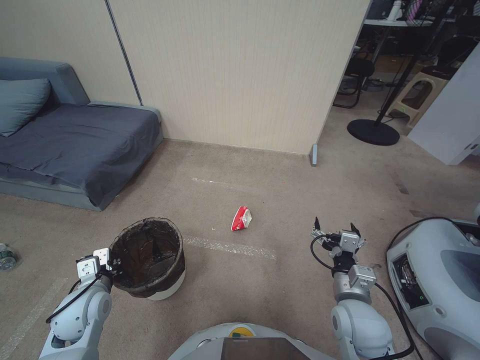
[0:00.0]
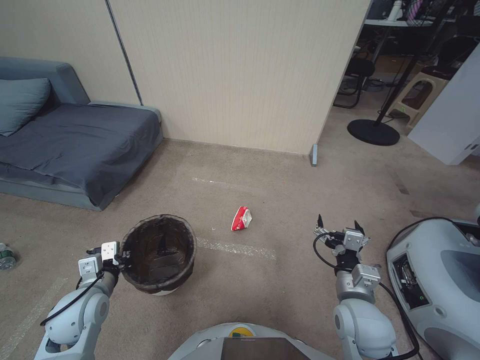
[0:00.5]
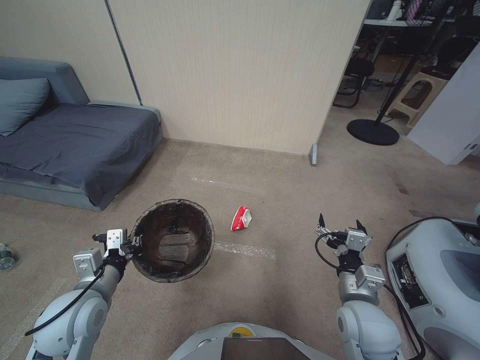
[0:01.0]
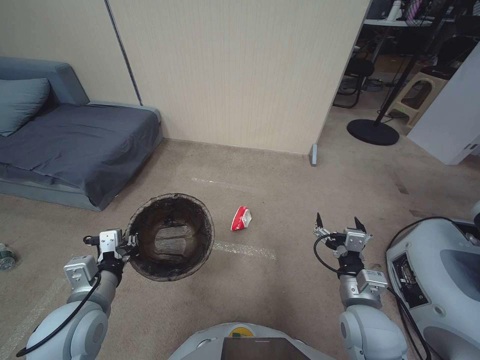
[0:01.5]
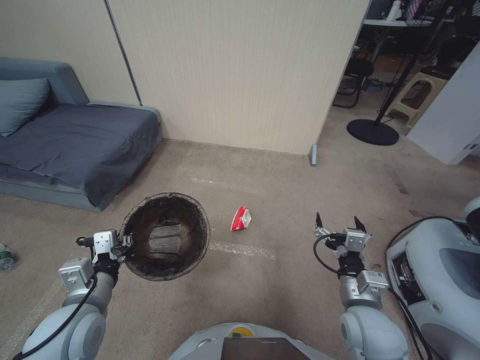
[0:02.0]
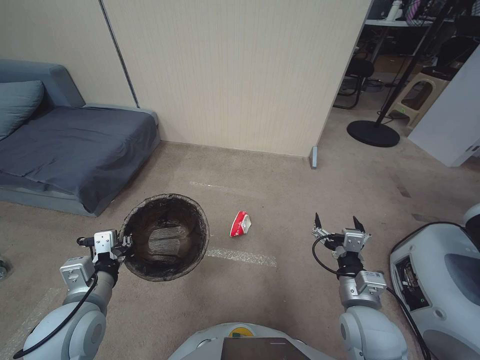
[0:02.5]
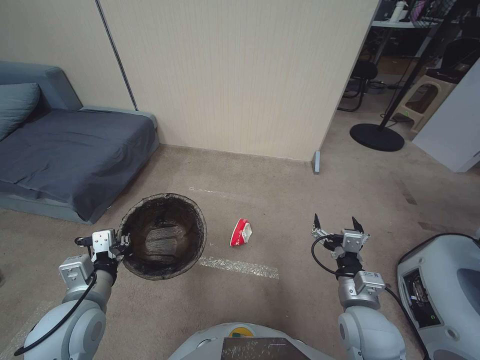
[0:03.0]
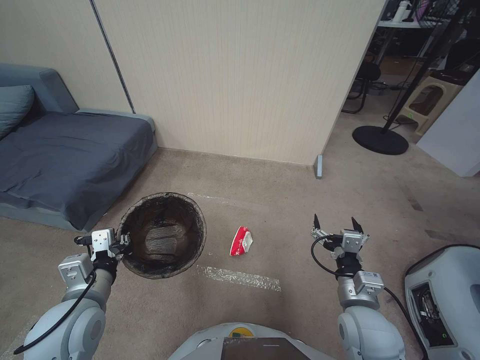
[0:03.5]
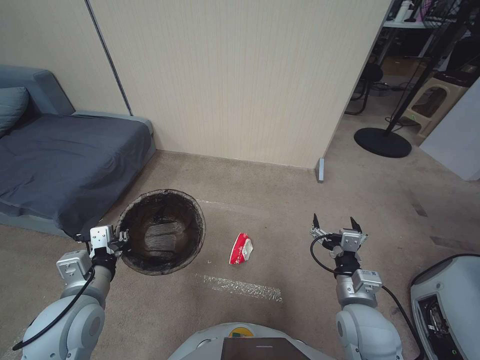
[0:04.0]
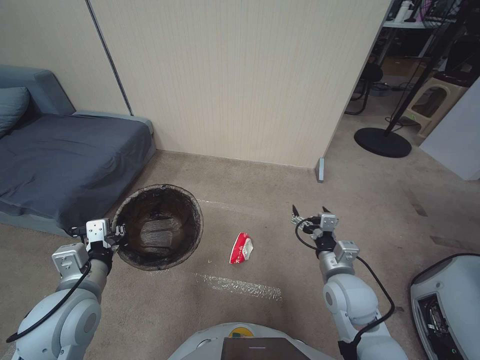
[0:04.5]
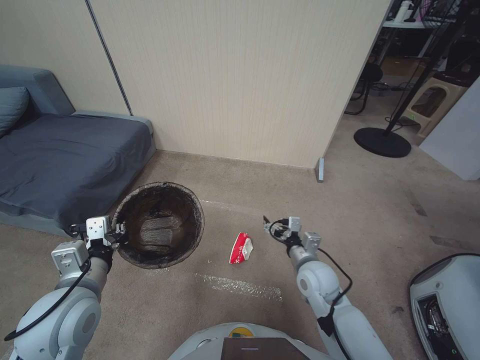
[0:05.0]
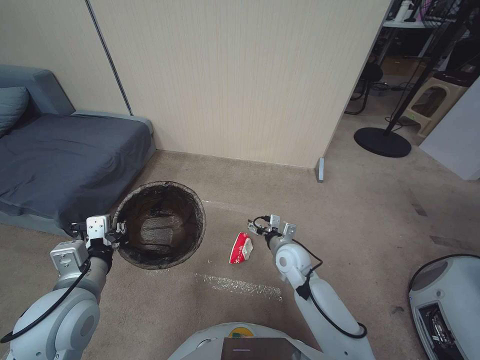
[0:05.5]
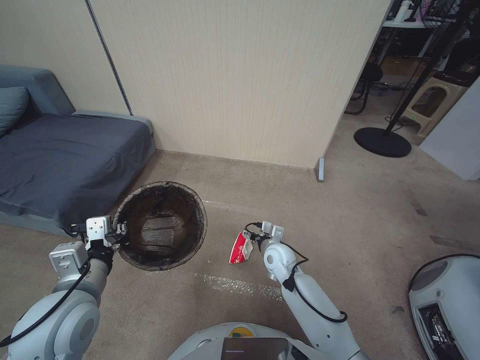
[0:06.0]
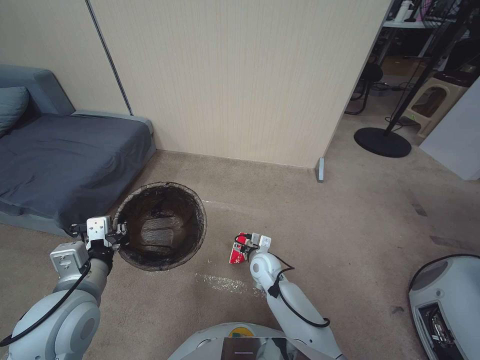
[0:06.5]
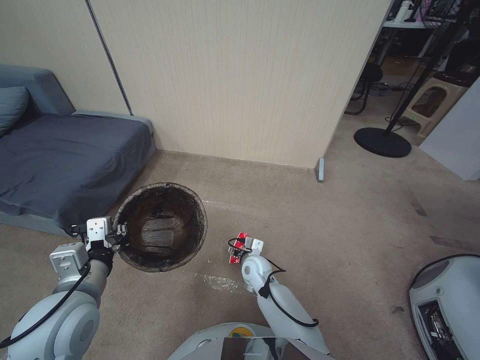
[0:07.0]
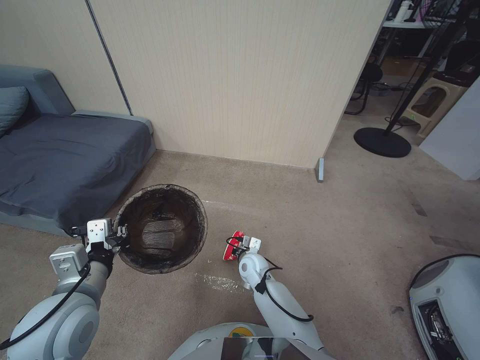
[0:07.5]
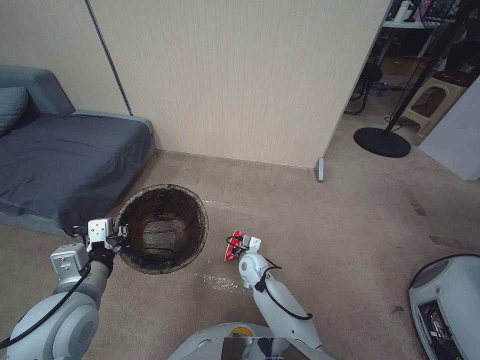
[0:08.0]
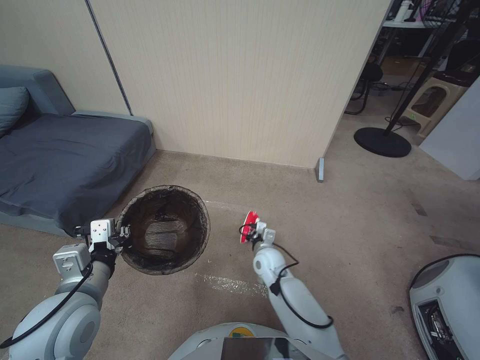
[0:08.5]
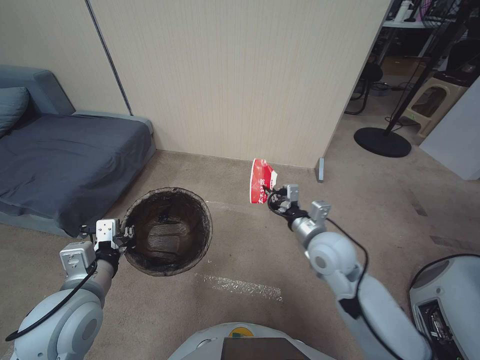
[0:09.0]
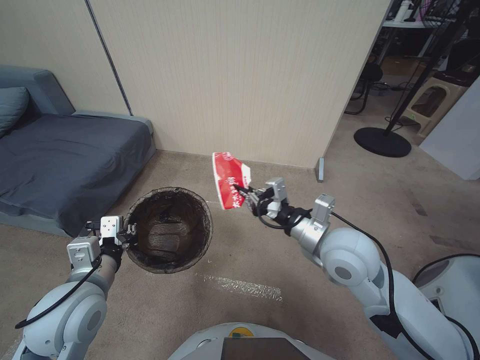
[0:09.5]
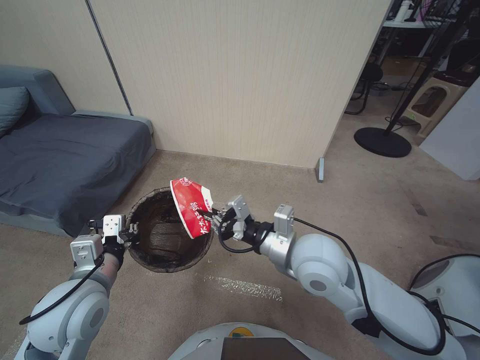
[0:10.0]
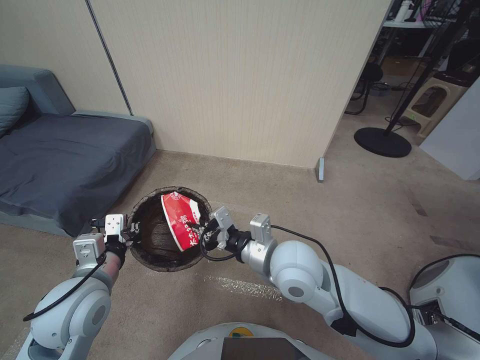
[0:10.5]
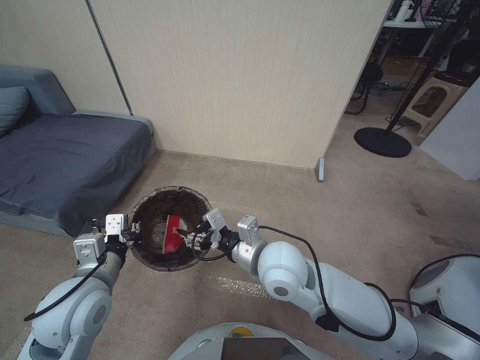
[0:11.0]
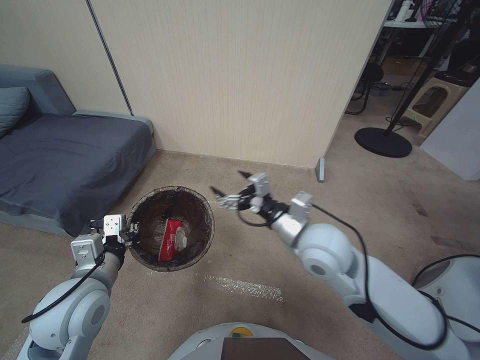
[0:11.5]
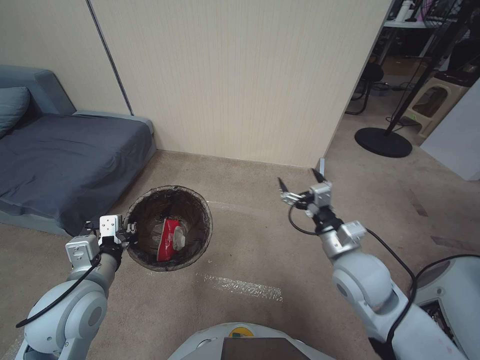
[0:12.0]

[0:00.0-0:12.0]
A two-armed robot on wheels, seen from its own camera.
Task of the whole recording: Pick up the trash bin, then pick up the garbage from the floor and place it into the trash bin.
0:00.0 to 0:02.0: The left gripper travels upward, to the right and backward by some 10 cm.
0:04.0 to 0:06.0: The right gripper shifts approximately 25 cm forward, downward and to the left.
0:06.0 to 0:08.0: The right gripper goes some 10 cm to the left and downward, and closes up.
0:08.0 to 0:10.0: The right gripper goes approximately 30 cm upward.
0:10.0 to 0:12.0: The right gripper shifts roughly 10 cm to the right and downward, and opens up.

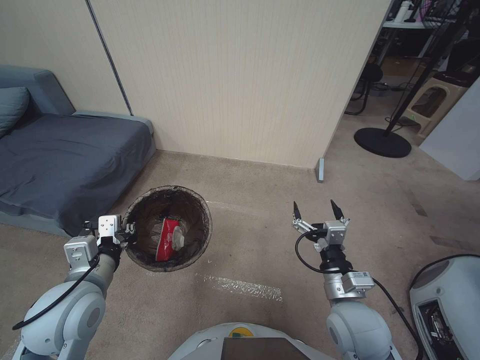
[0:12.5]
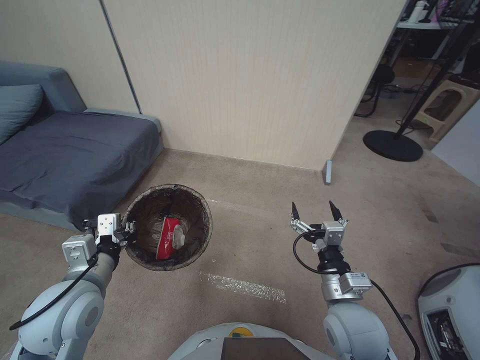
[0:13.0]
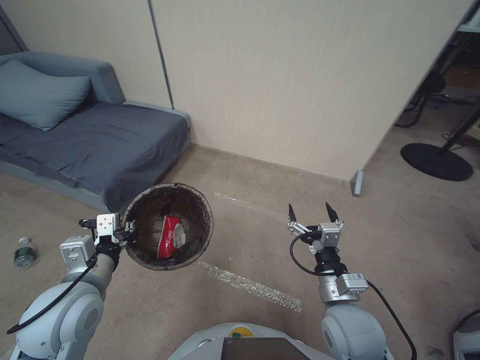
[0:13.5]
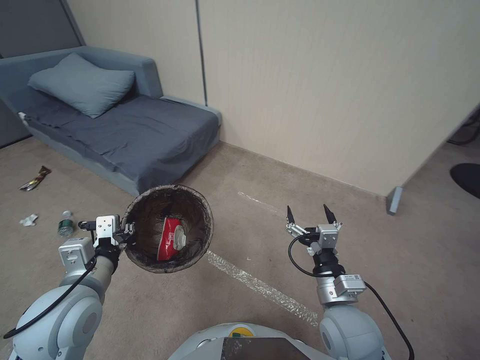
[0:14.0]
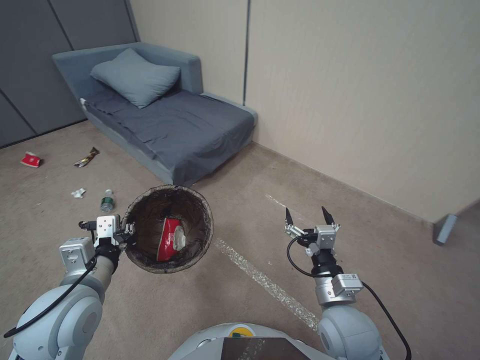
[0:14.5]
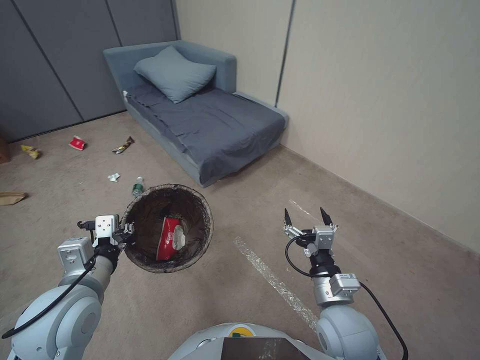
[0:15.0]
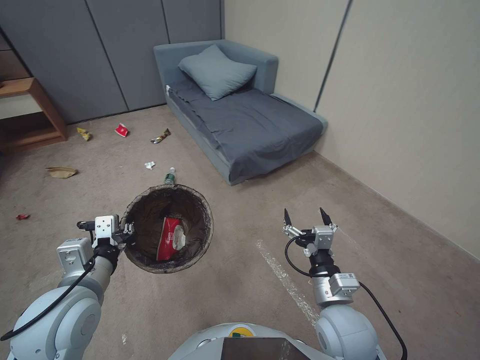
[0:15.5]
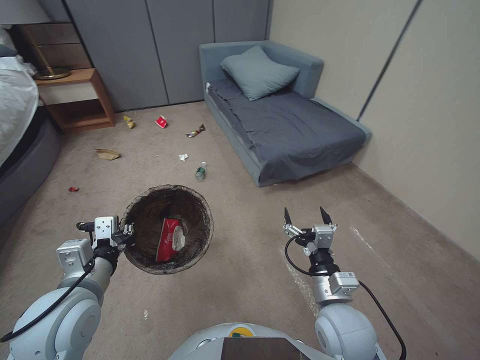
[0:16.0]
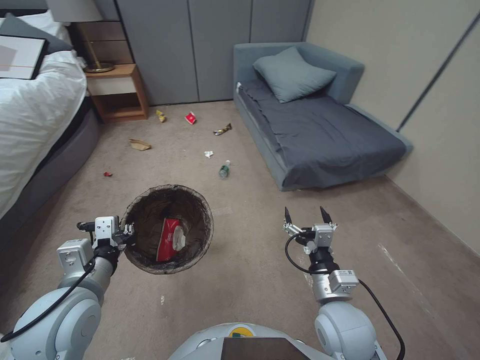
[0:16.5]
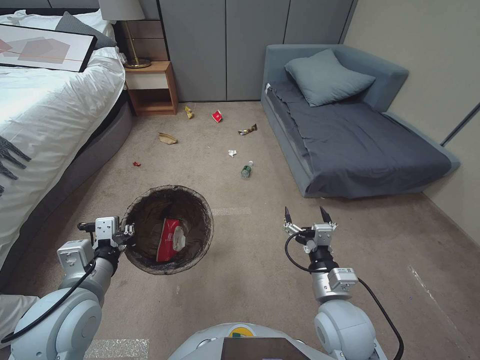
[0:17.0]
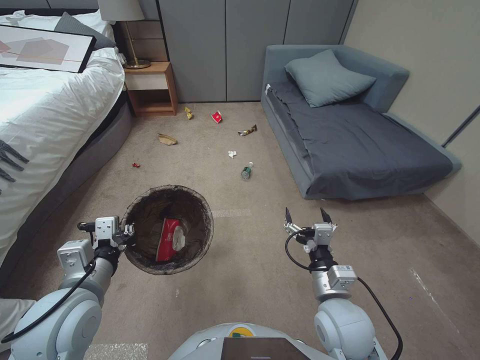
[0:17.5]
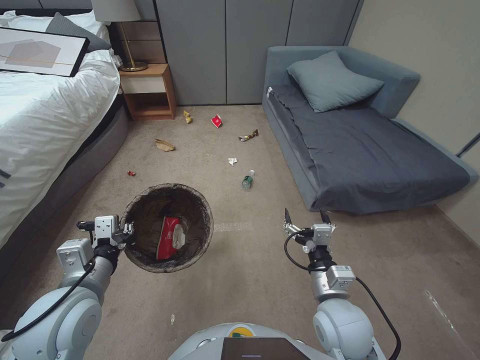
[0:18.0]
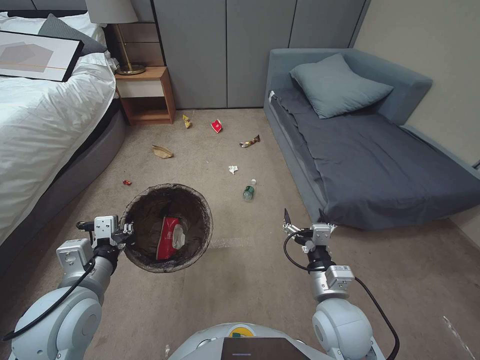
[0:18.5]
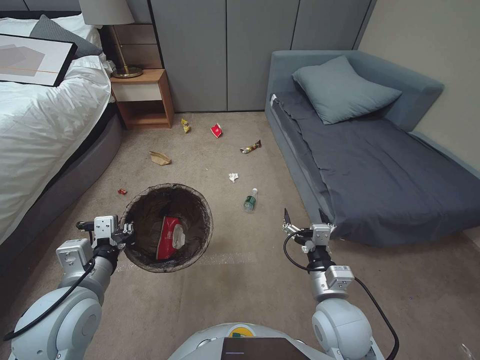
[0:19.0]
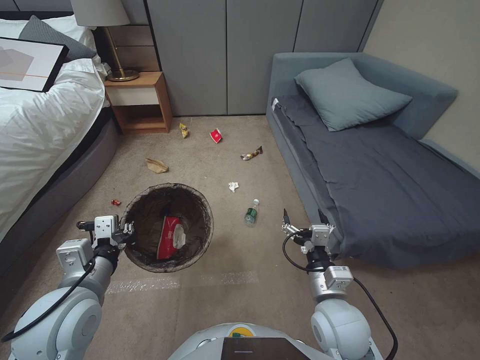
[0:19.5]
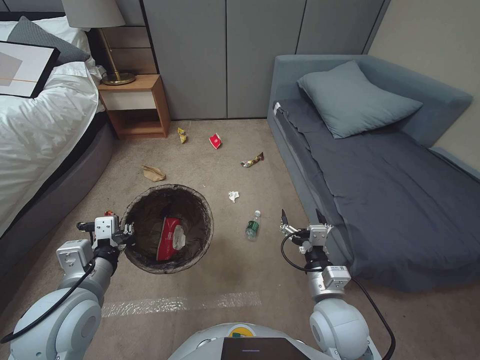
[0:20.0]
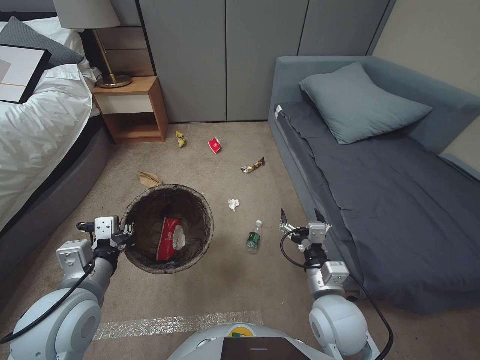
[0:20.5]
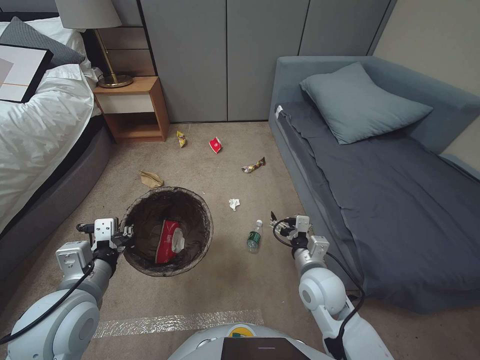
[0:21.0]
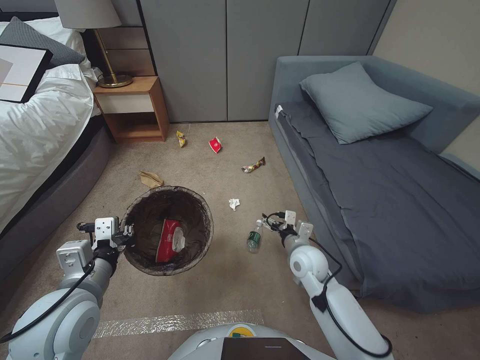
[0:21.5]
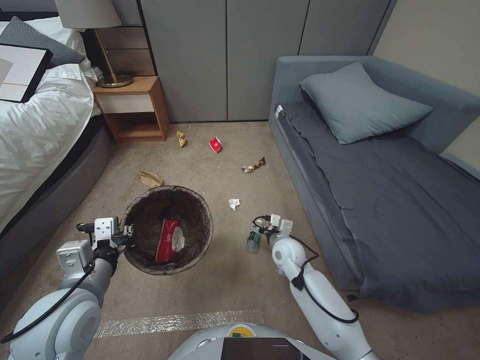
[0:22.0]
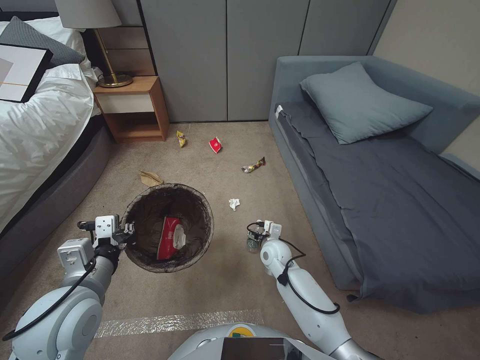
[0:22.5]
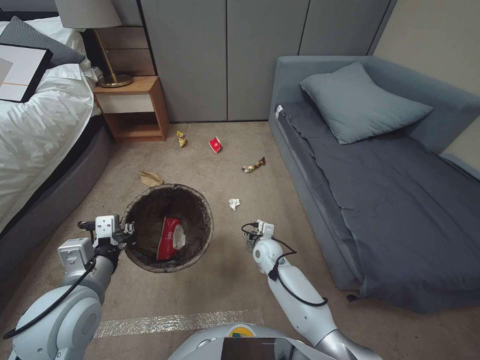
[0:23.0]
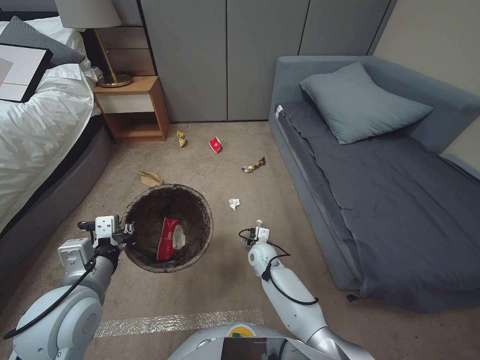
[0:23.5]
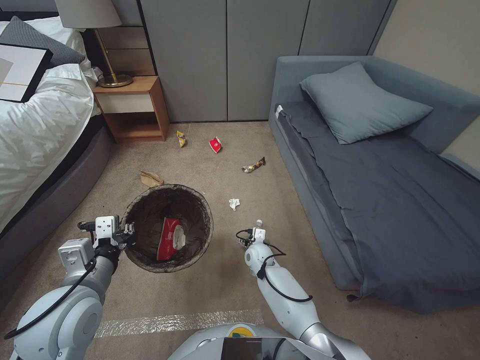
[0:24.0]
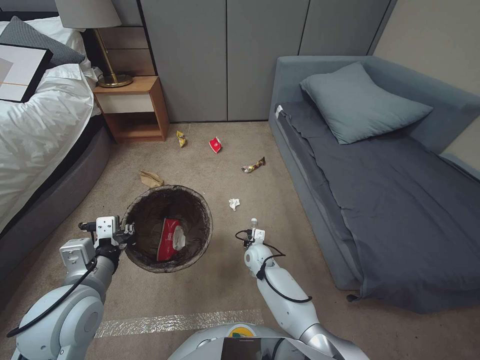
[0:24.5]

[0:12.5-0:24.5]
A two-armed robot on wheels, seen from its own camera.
Task of the whole recording: Pick up the trash bin, then pick up the garbage from the floor and place it into the trash bin.
0:20.5 to 0:22.5: The right gripper moves forward and downward, some 25 cm.
0:22.5 to 0:24.5: The right gripper is displaced downward and to the left by about 10 cm, and closes.

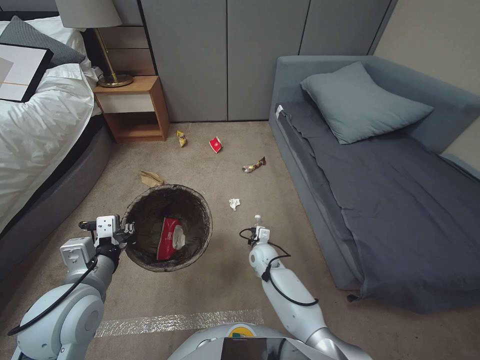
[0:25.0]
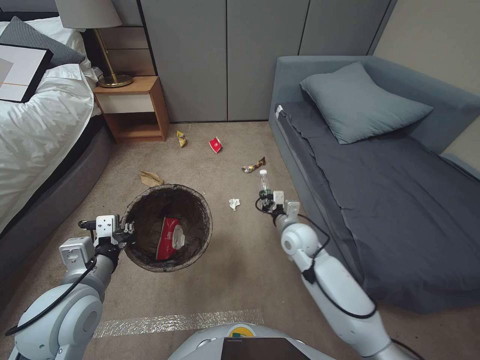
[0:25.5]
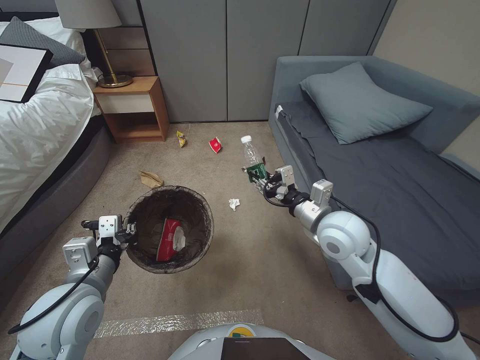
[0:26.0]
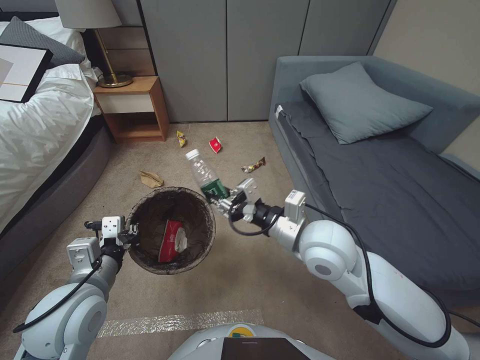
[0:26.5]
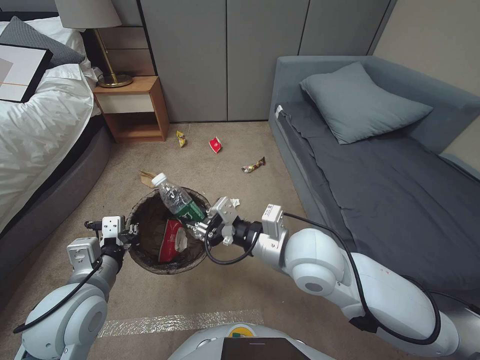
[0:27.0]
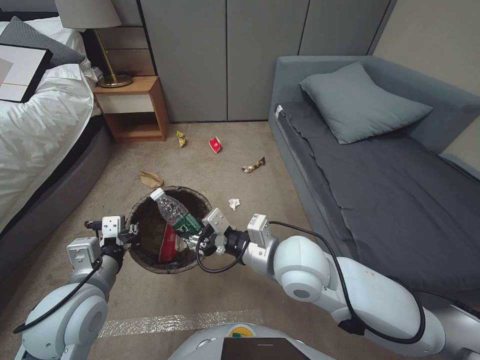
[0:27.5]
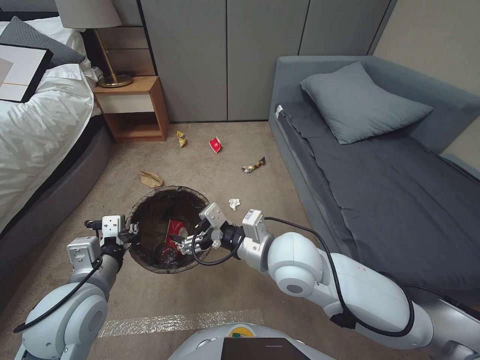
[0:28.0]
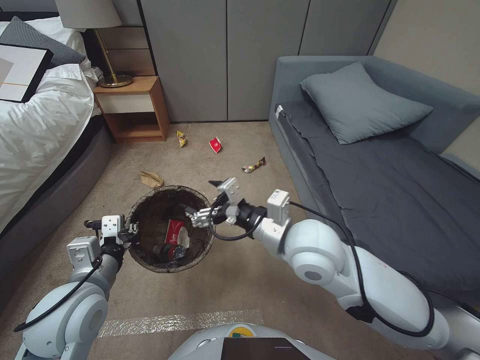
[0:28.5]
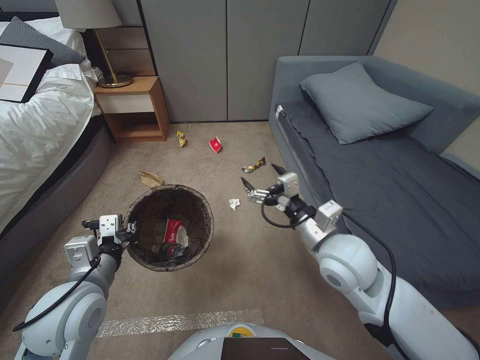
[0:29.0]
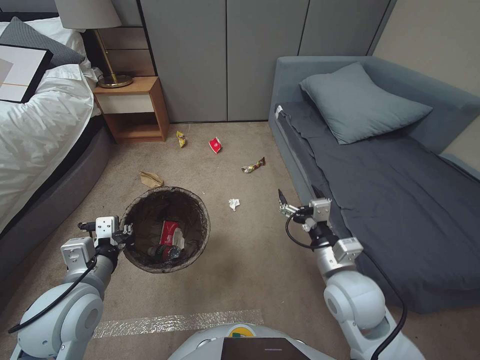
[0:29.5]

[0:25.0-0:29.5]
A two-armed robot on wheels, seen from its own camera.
Task of the whole recording: Pick up the trash bin, then pick up the garbage from the floor and place it into the trash bin.
0:25.0 to 0:27.0: The right gripper shifts roughly 35 cm upward.
0:27.0 to 0:29.5: The right gripper travels to the right and downward by roughly 15 cm, and opens up.
